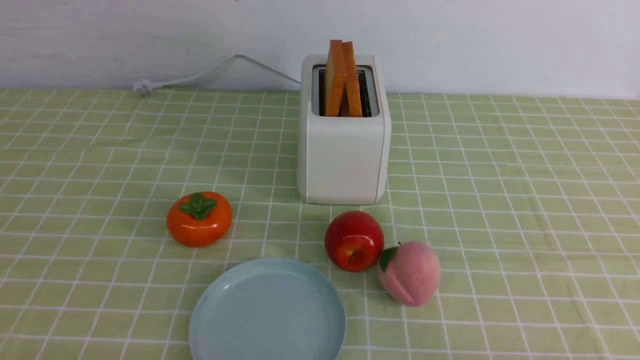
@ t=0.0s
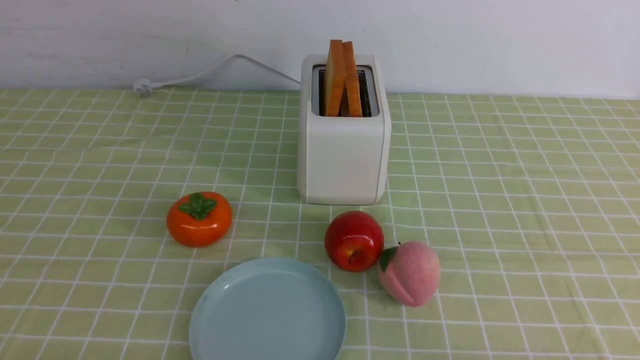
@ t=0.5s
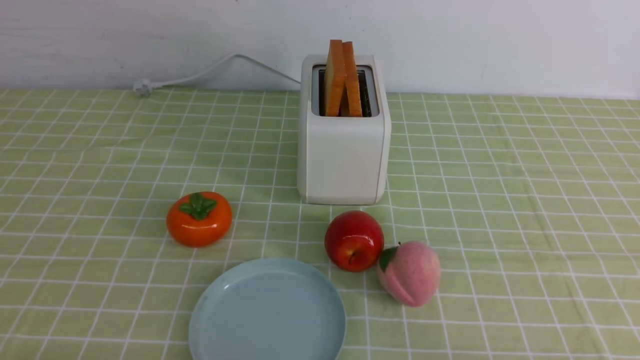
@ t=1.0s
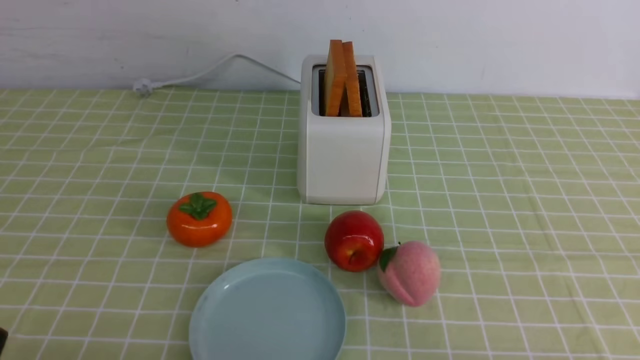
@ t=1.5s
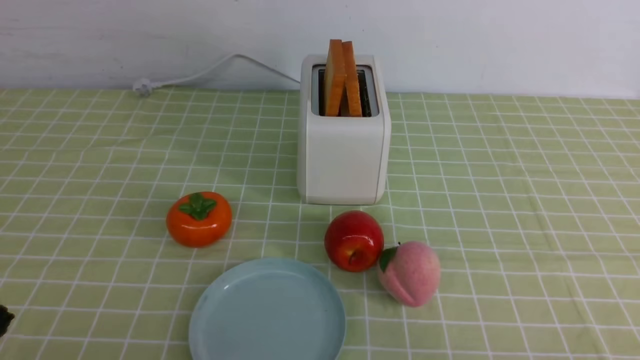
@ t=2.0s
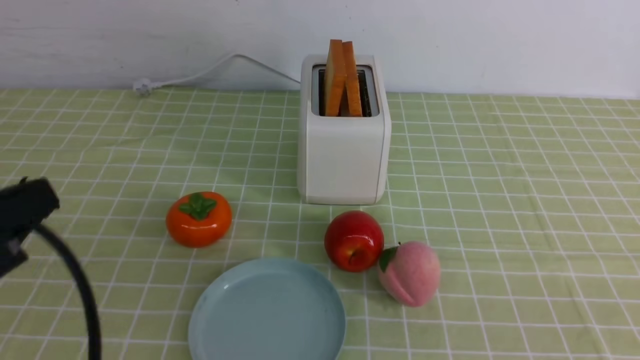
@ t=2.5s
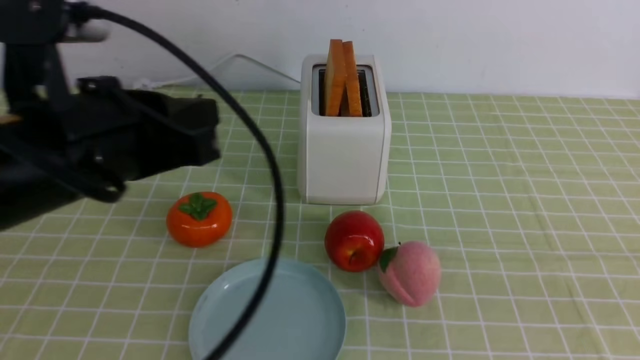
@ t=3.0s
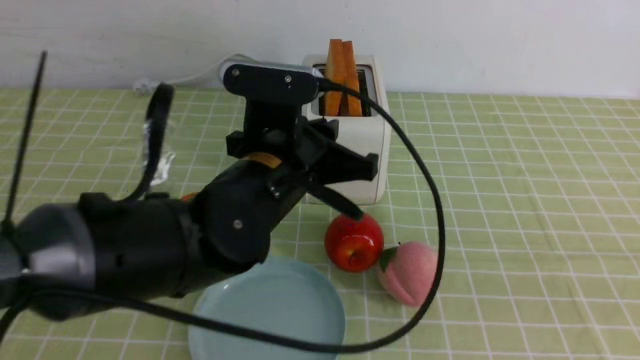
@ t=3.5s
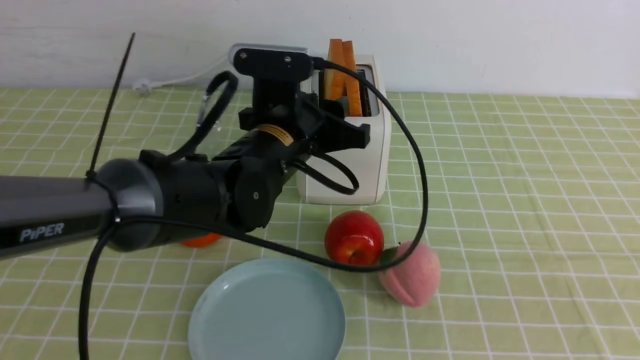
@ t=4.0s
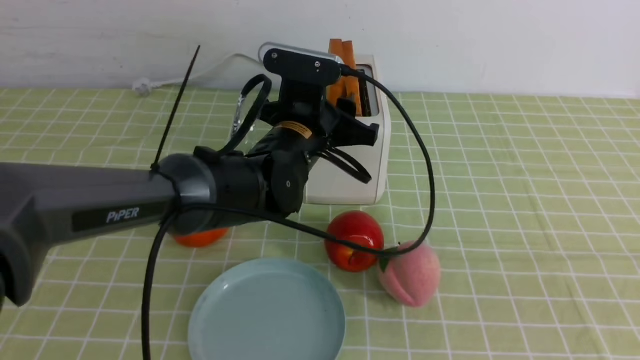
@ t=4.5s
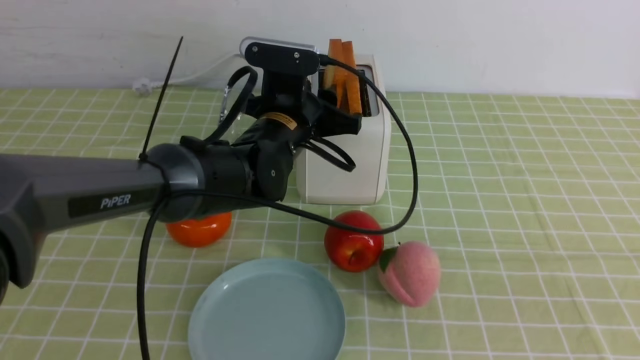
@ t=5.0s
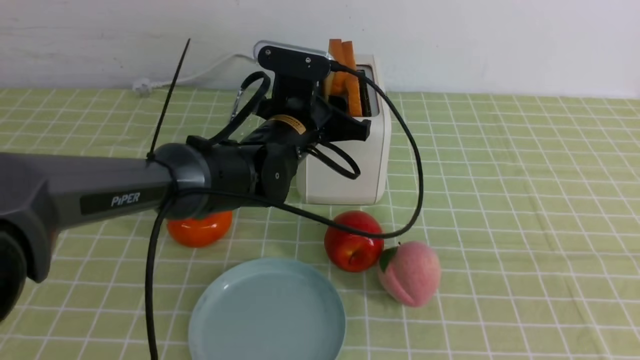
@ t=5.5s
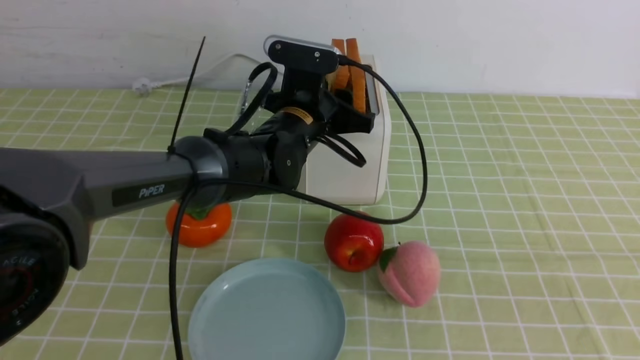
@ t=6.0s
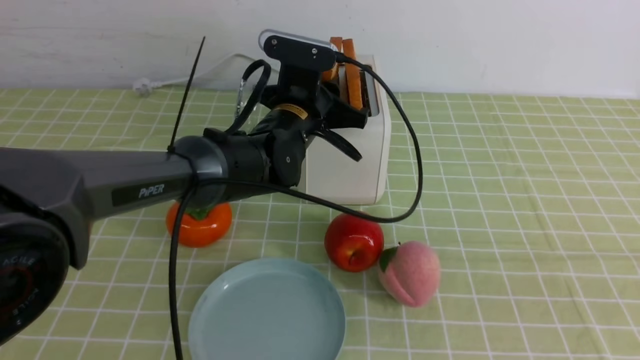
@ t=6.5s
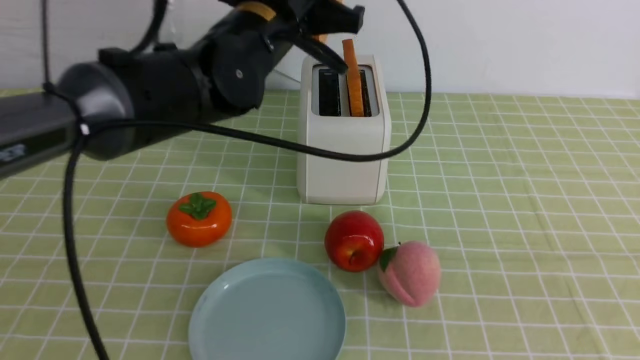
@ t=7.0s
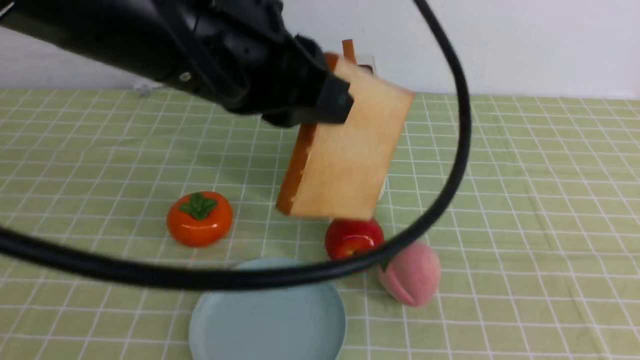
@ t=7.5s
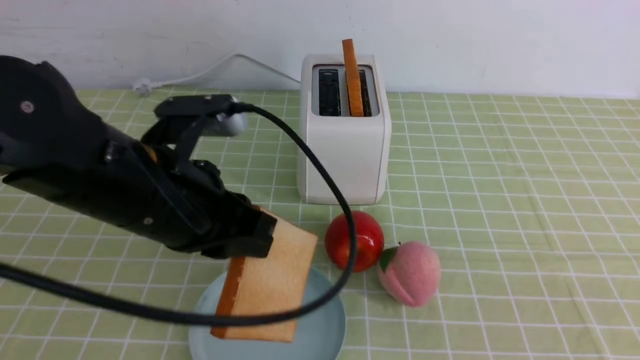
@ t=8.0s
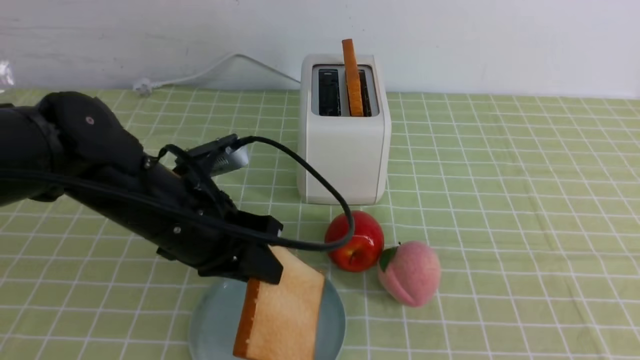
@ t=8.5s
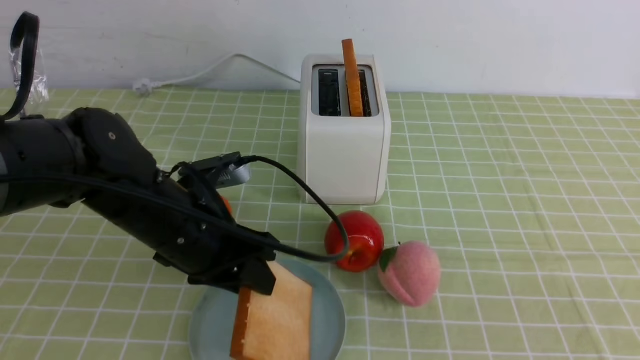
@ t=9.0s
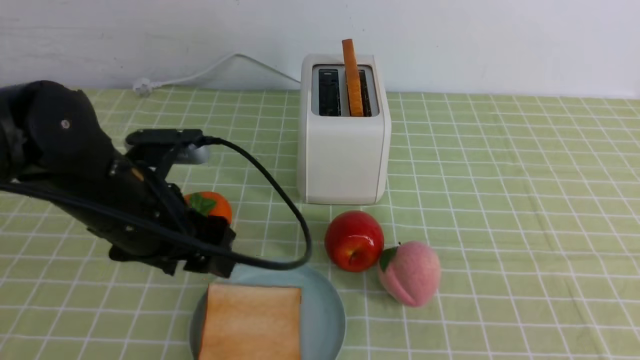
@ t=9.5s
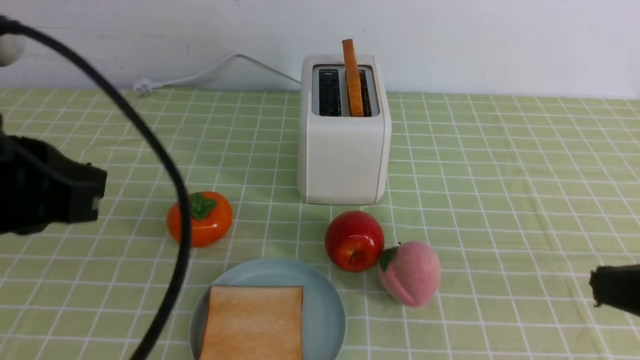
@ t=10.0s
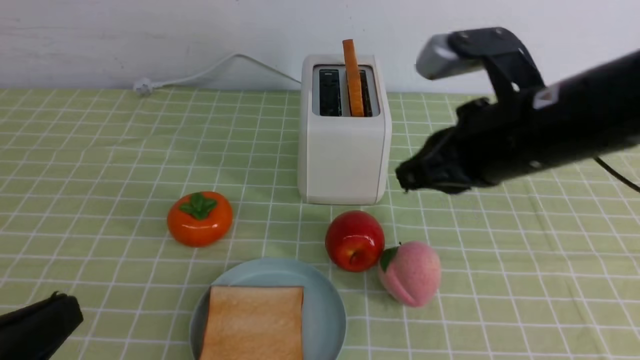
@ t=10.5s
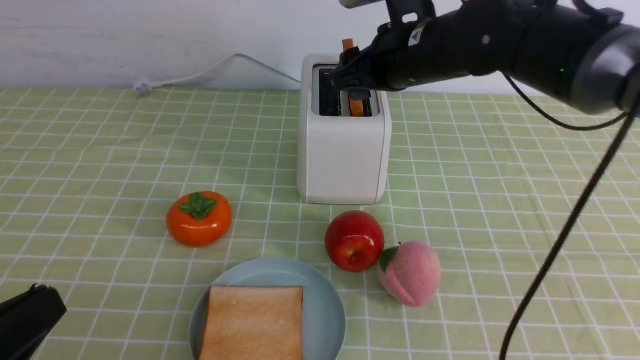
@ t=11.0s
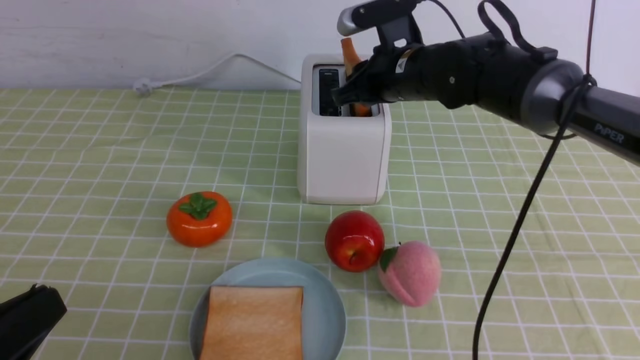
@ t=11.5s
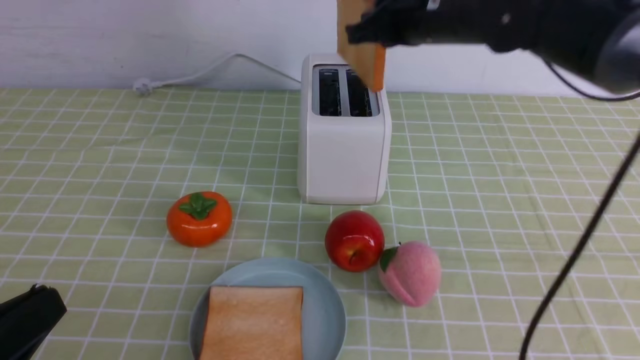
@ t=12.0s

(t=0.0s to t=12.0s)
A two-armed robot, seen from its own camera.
Task of the whole recording: take toasted bread from bread machine on green coffee tablecloth place on plate.
Step, t=0.0s - t=7.0s: use the left arm to take out a slice of bread.
Step, t=7.5s - t=9.5s: use the left arm to put a slice of bread into the empty plate.
t=2.0s - t=4.0s: The right gripper travels upward by approximately 15 cm, and closes up; the left gripper shifts some 35 cm forward and to the right, and opens up.
t=4.0s - t=6.0s: The left gripper is displaced forward by some 10 cm.
t=6.0s - t=8.0s: The left gripper moves backward, to the left and upward, approximately 20 cm, and closes its fingers.
t=8.0s - t=10.0s: The right gripper heads forward, covering about 5 cm, while the left gripper shifts some 10 cm to the left and backward, moves roughly 10 cm downward and comes back, and opens, then closes once more.
t=10.0s - t=12.0s: The right gripper shifts some 35 cm forward and to the left, and opens, then closes again; the left gripper shifts roughly 15 cm backward and downward.

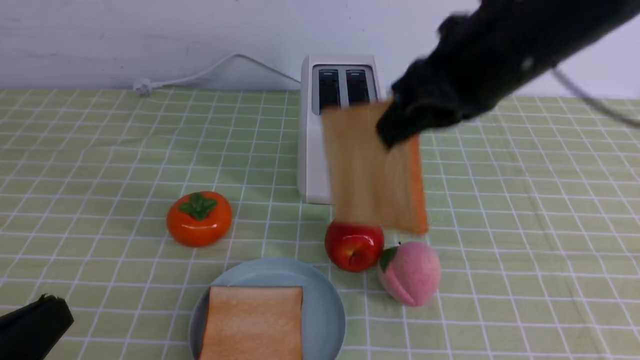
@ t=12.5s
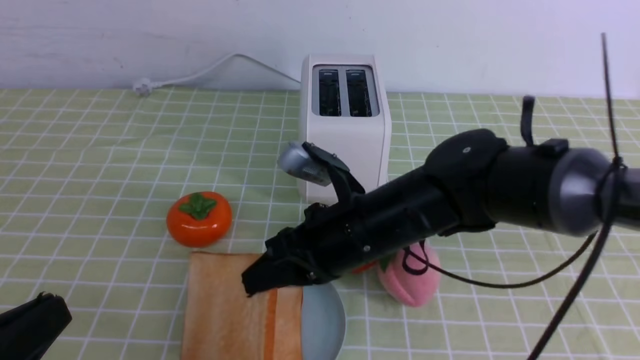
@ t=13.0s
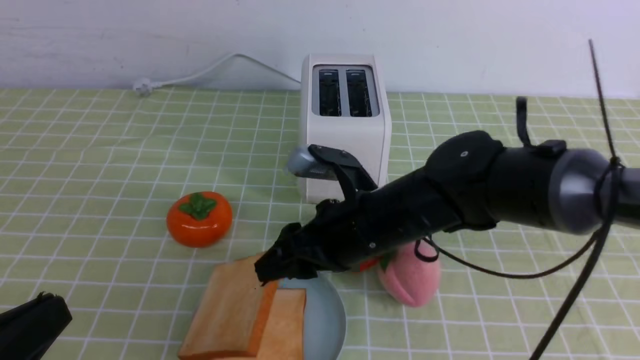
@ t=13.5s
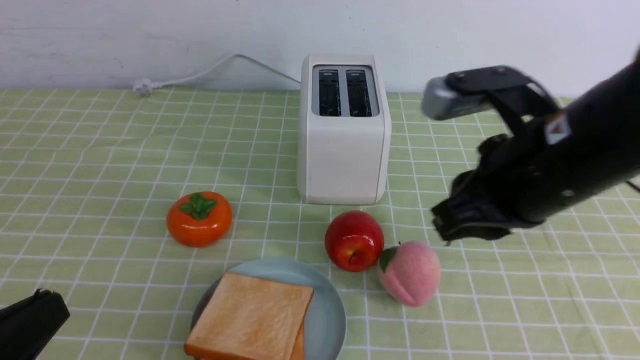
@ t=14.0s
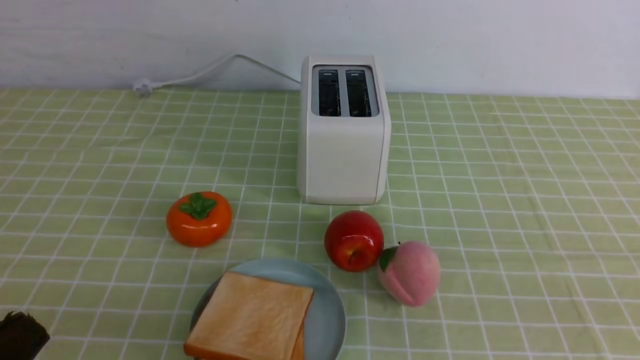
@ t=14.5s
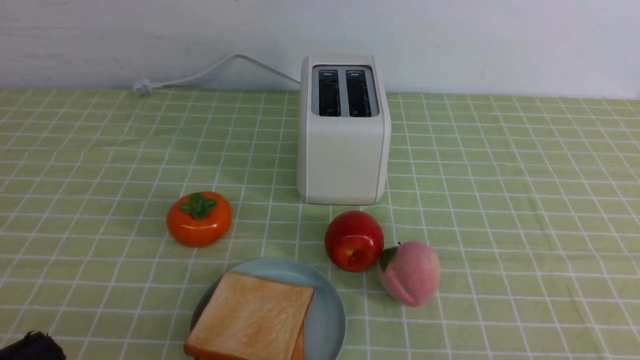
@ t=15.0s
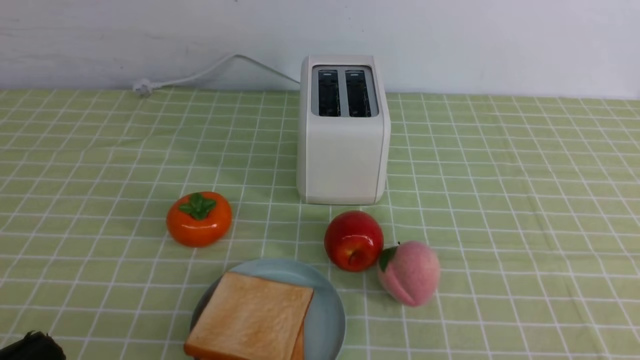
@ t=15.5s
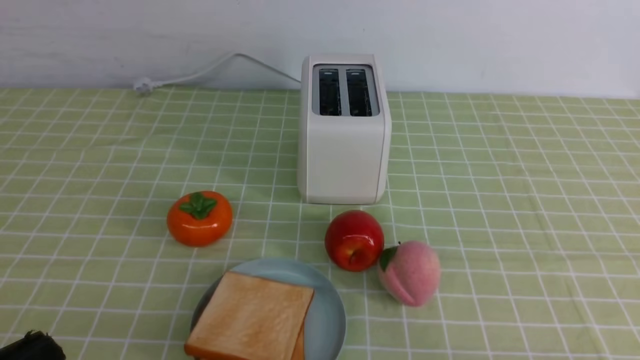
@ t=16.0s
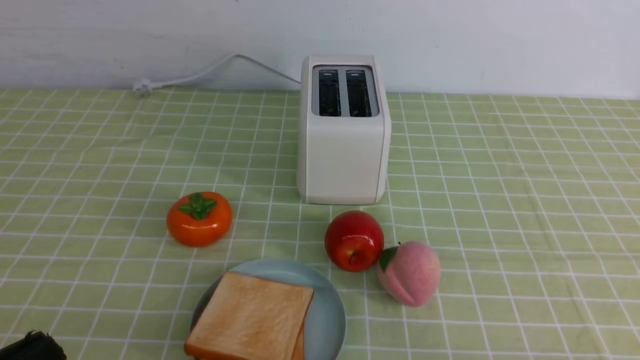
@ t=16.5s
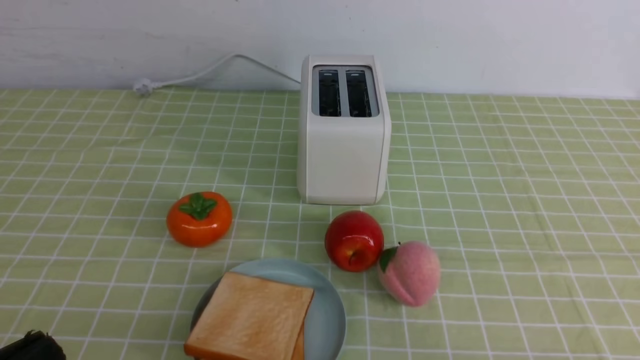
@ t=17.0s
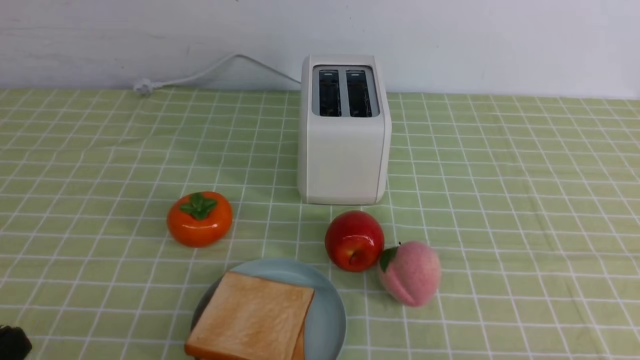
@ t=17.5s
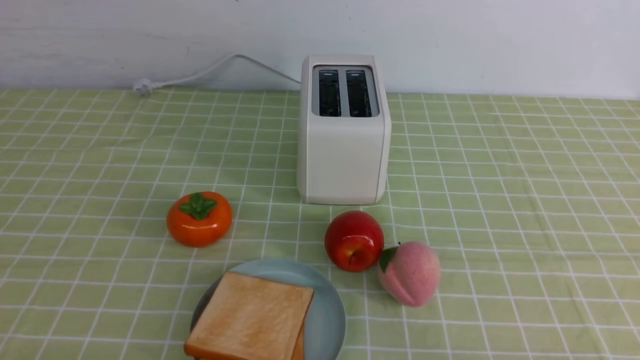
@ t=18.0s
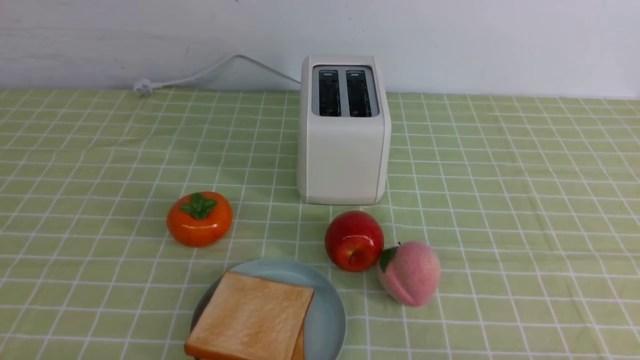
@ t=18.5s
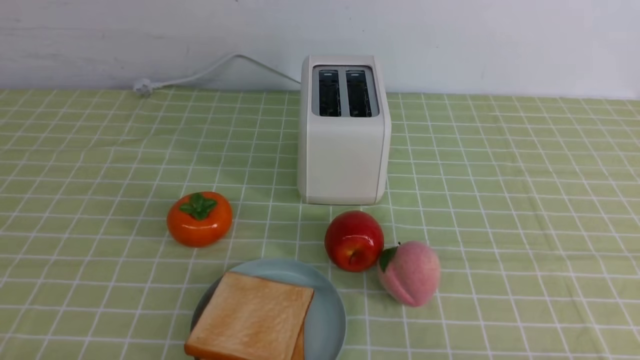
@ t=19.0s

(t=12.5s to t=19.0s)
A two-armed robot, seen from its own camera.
Task of the whole recording: take toasted bread from bread machine on green coffee tablecloth place on plate.
Step, t=12.5s - t=13.5s: use the right arm to put a slice of bread into the plate.
t=12.5s - t=14.5s: The right gripper shifts roughly 25 cm backward and to the right, and opens, then closes once more.
t=17.0s - t=19.0s: The left gripper is displaced downward by roughly 10 cm.
